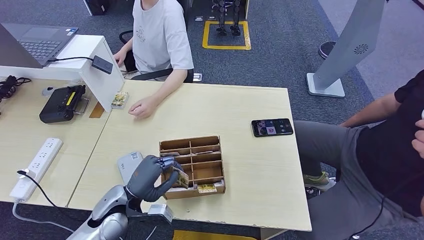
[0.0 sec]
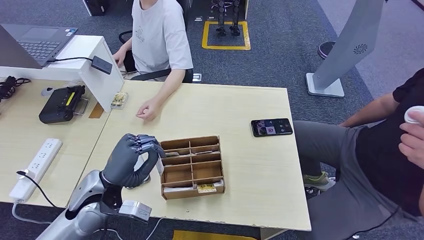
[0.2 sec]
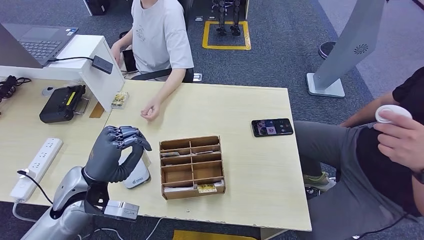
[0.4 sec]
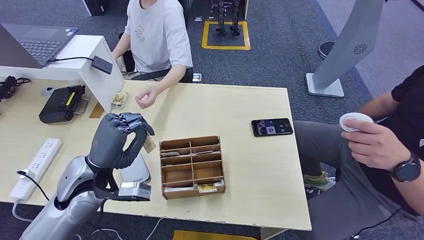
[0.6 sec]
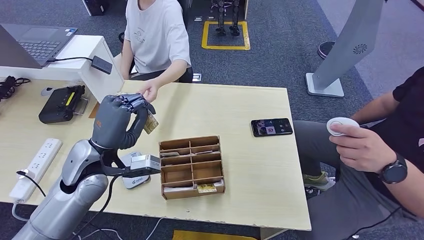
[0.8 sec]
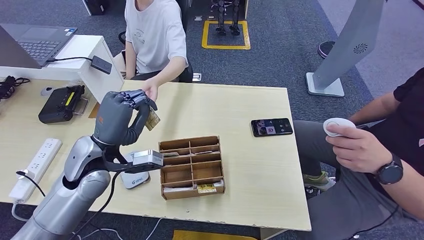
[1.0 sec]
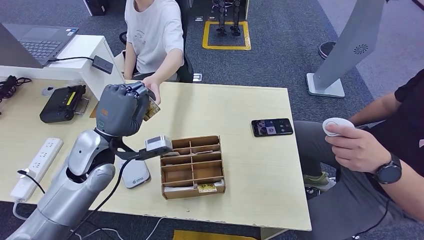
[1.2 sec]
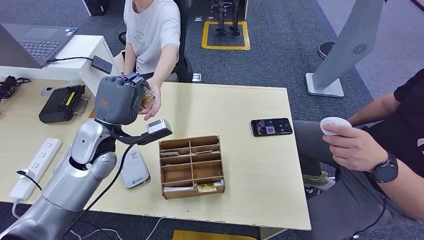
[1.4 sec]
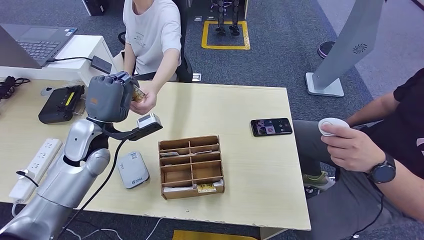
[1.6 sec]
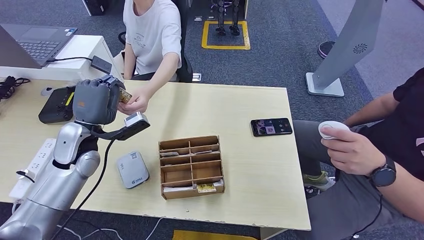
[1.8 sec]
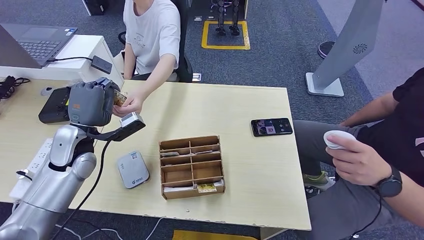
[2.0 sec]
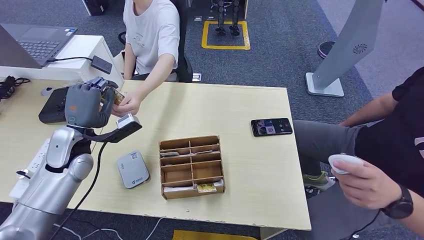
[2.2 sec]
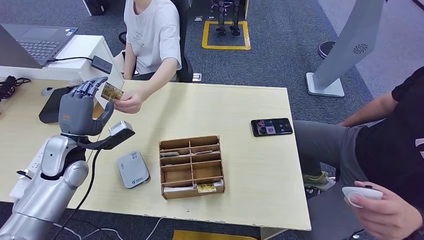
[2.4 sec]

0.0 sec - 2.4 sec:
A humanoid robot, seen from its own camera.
Step, 0.6 sec - 2.4 sec: Hand the room key to the person.
